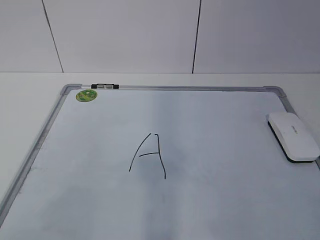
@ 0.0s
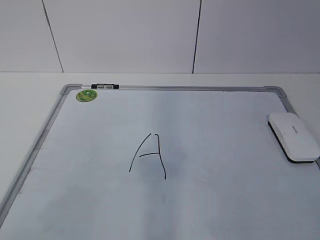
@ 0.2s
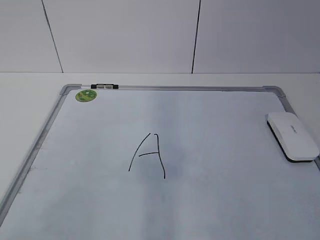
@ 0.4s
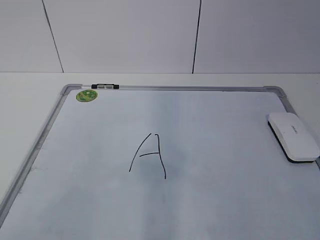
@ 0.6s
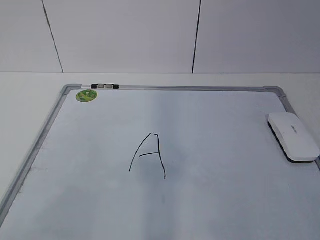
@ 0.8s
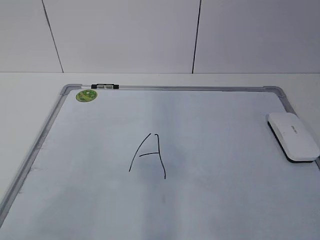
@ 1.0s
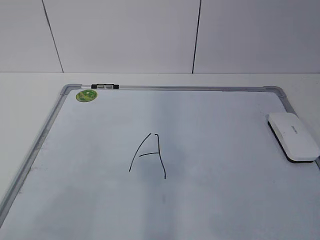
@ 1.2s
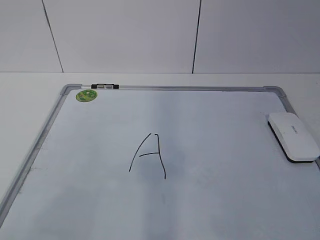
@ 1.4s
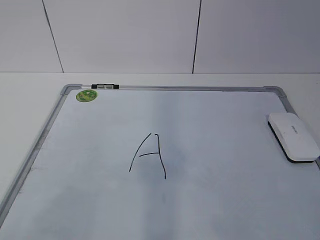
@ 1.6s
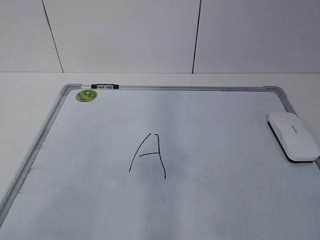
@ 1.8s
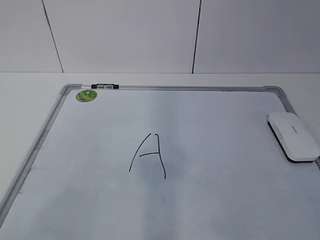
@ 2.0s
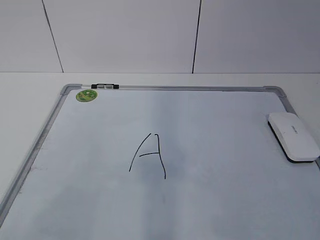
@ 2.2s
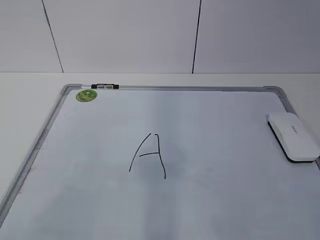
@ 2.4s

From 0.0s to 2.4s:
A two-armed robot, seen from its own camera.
Task of the whole recording: pick up the eraser on the blackboard and erase the letter "a".
From 1.2s to 2.4s: Both grippers stay put.

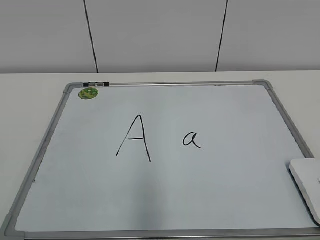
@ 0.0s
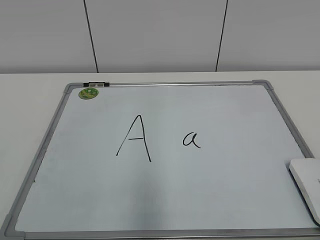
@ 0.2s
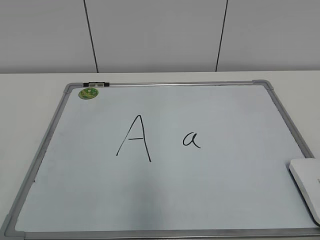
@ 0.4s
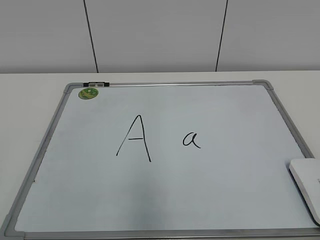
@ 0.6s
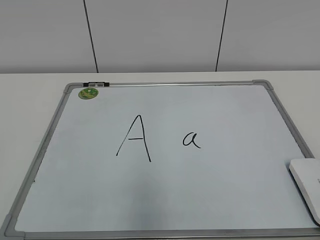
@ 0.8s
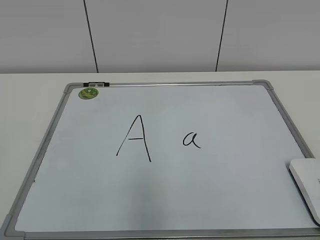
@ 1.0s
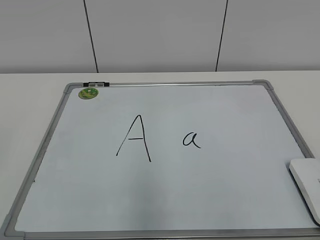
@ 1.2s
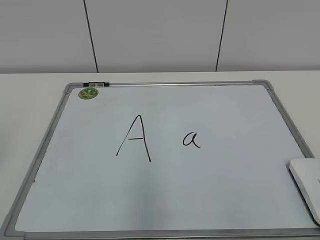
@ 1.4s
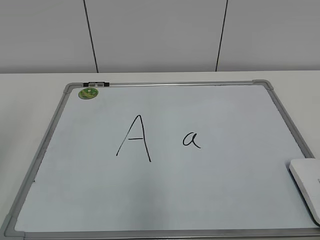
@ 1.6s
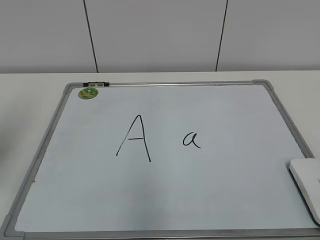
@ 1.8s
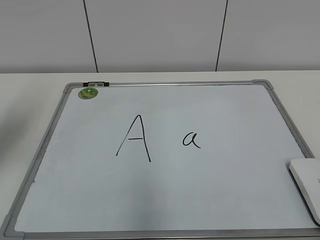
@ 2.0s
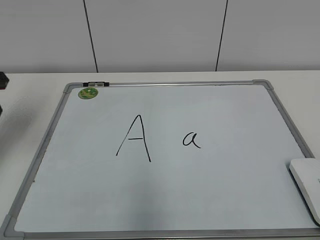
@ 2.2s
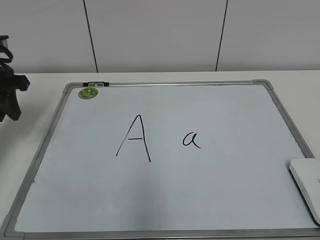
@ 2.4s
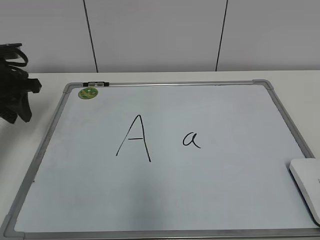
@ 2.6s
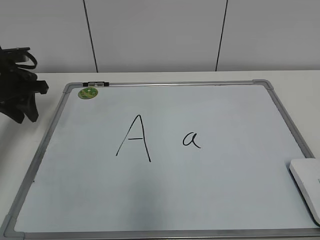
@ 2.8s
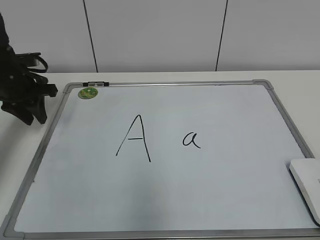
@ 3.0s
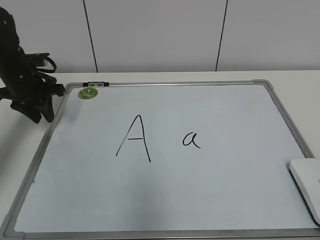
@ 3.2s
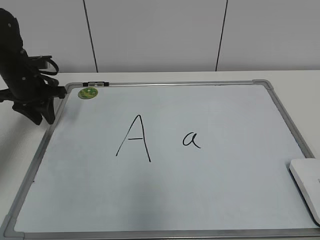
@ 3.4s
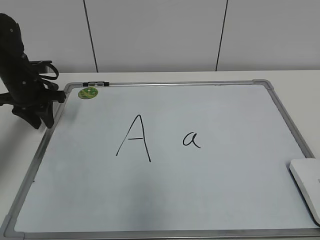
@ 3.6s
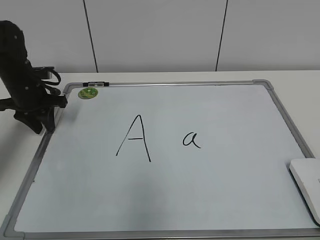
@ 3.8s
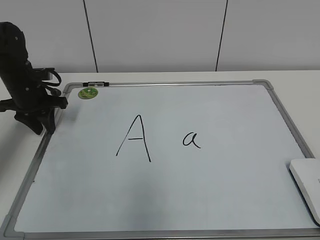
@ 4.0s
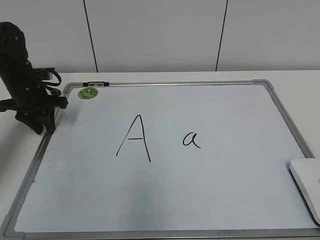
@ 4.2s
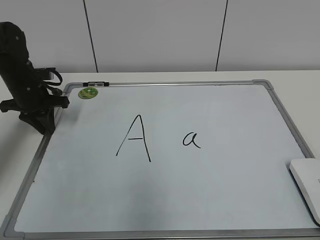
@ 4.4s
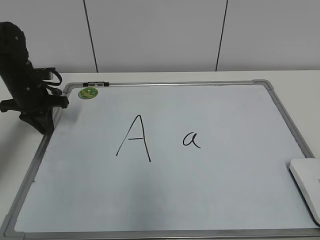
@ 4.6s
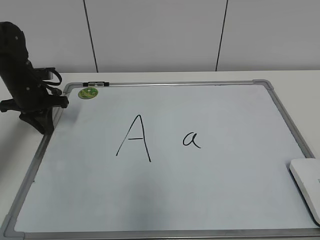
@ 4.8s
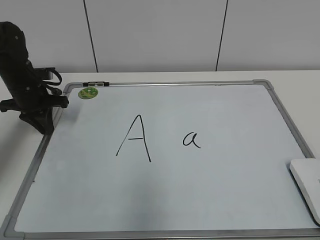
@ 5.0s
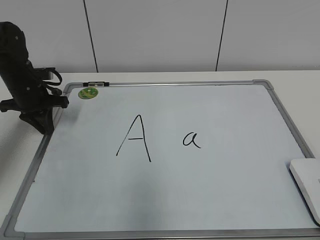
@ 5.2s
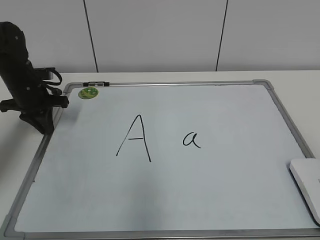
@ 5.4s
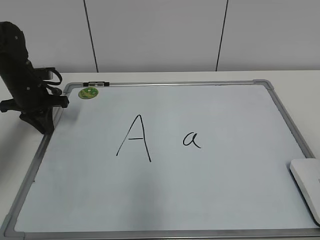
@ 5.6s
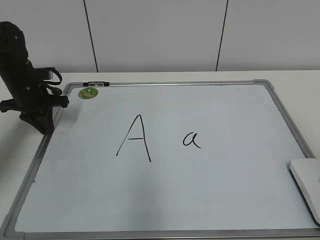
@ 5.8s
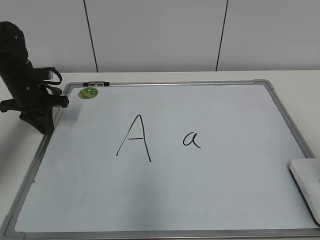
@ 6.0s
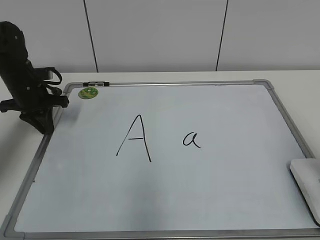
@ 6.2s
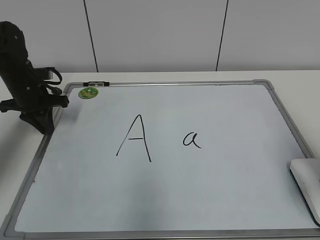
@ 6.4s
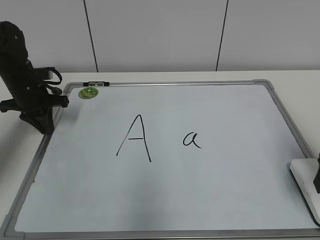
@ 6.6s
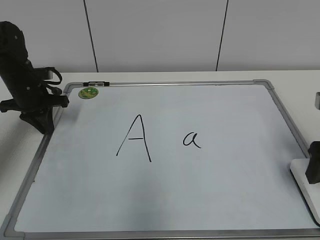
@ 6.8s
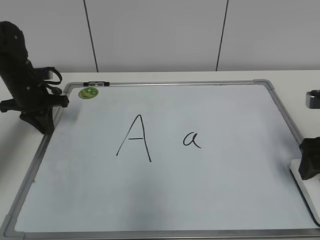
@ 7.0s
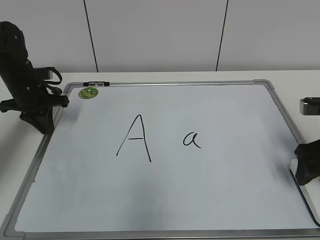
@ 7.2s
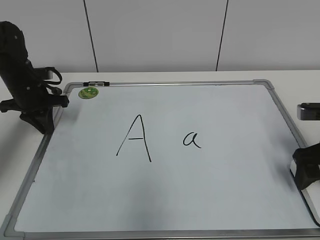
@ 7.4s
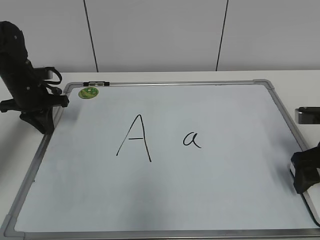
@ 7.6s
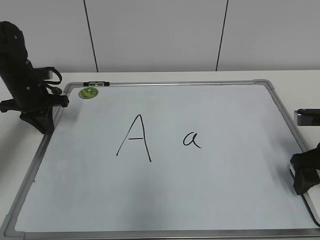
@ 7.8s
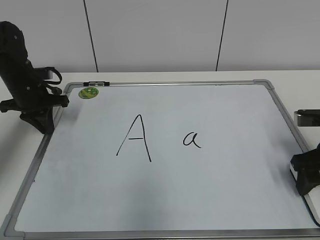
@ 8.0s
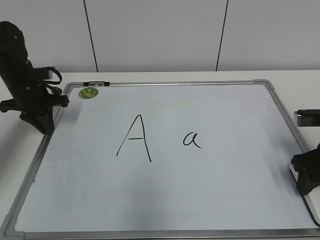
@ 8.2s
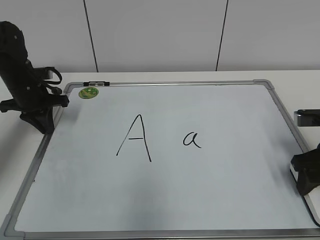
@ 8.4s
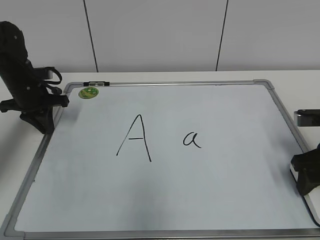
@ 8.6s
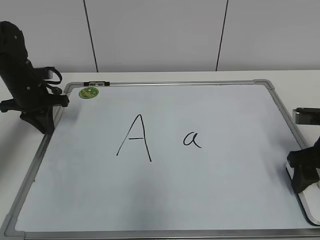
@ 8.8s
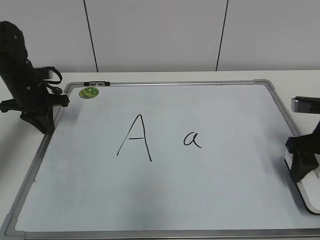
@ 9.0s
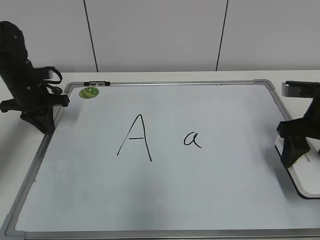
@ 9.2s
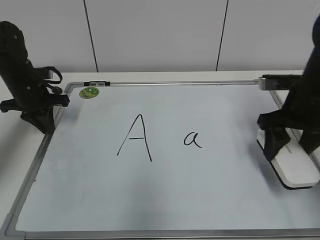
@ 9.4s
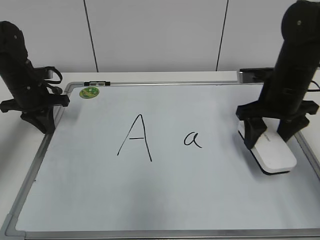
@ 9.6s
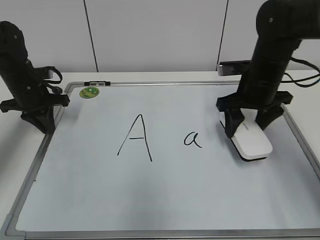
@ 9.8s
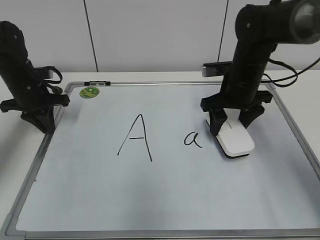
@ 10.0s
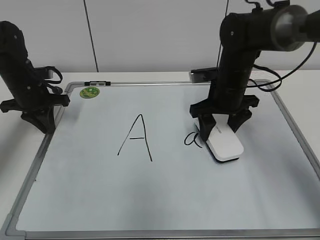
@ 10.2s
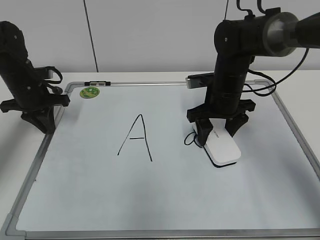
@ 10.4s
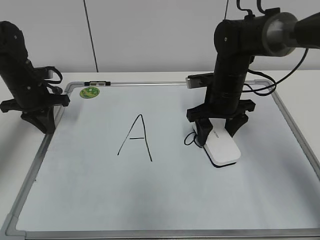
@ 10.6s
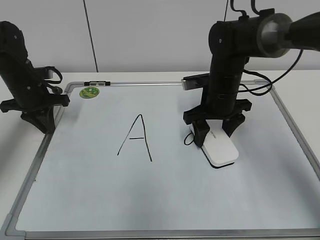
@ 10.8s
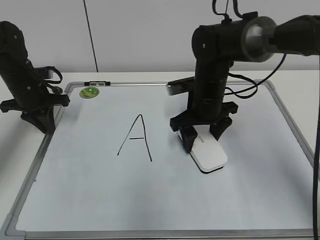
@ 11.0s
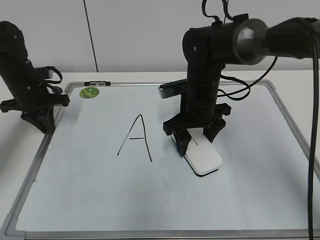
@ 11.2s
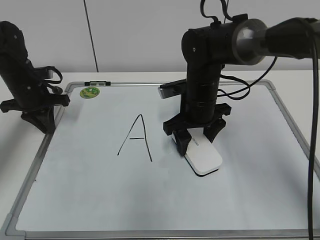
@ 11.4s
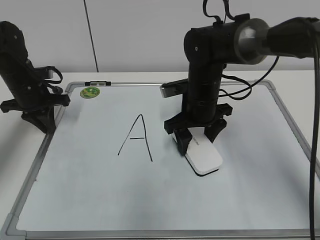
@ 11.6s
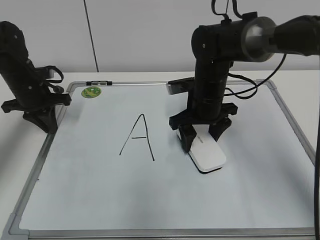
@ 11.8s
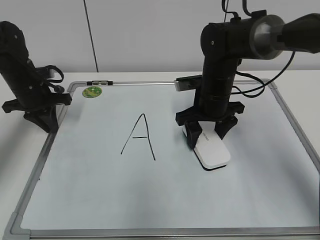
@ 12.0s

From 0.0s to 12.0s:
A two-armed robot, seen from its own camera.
Task of the whole recording: pick up the eraser on the blackboard and erase the letter "a".
Step, from 0.0s to 4.8s: Hold the drawing board steady with your left hand.
Step, from 5.0s to 8.0s: Grab the eraser with your right hand.
From 1.6s to 3.0s: The left gripper is displaced forward and downward by roughly 30 cm.
From 3.0s to 4.4s: There are only small adjustments of the grippers.
From 6.0s to 7.6s: The right gripper is displaced forward and downward by about 20 cm.
From 7.6s to 9.0s: The right gripper closes up.
From 9.0s to 10.4s: The right gripper travels to the left and forward by roughly 20 cm.
From 10.4s to 12.0s: The grippers move only a little.

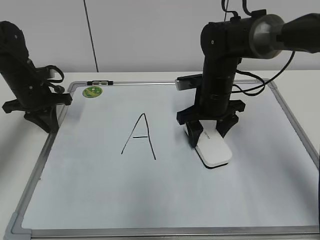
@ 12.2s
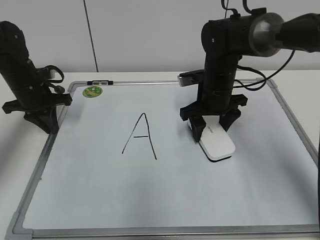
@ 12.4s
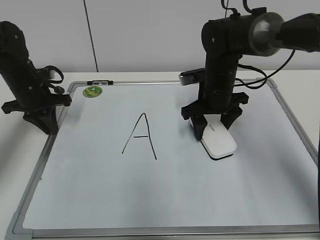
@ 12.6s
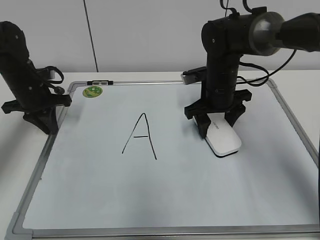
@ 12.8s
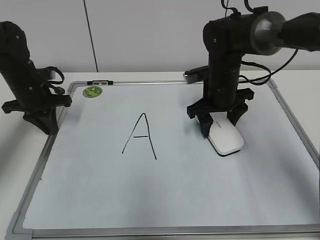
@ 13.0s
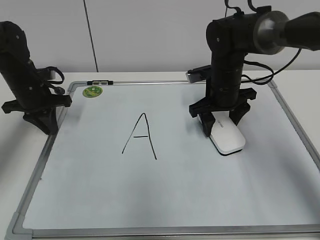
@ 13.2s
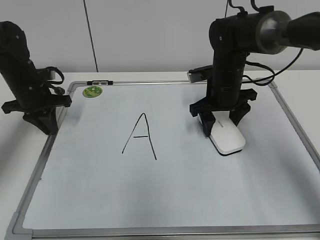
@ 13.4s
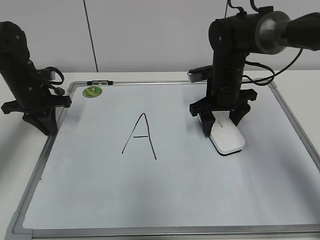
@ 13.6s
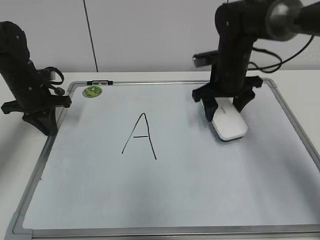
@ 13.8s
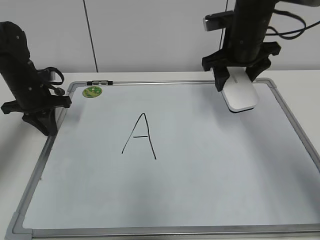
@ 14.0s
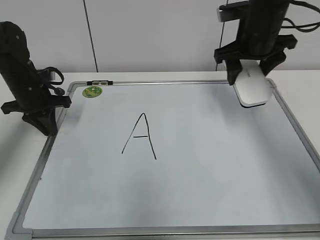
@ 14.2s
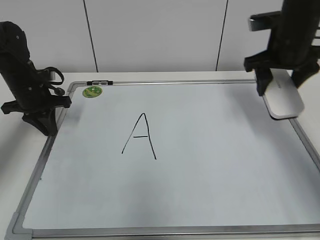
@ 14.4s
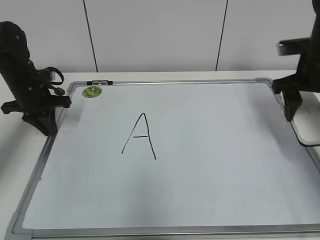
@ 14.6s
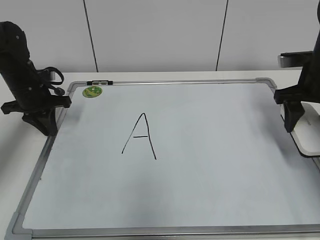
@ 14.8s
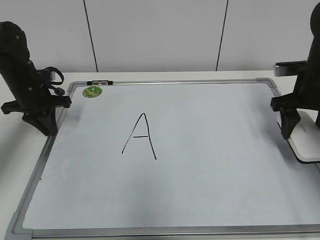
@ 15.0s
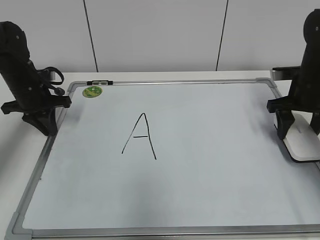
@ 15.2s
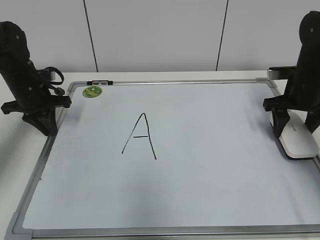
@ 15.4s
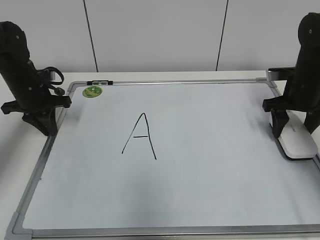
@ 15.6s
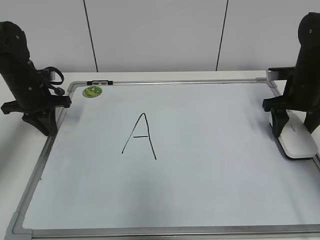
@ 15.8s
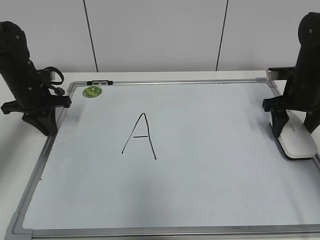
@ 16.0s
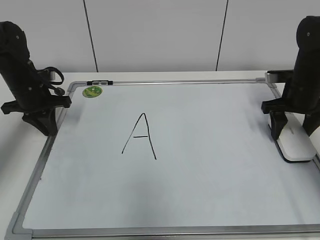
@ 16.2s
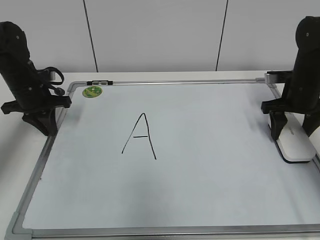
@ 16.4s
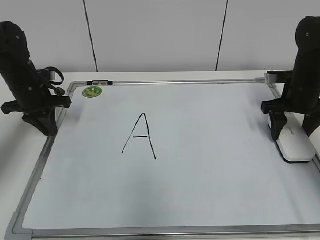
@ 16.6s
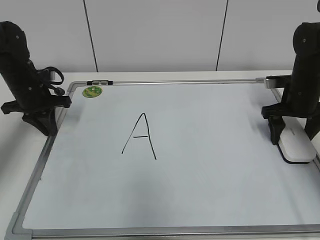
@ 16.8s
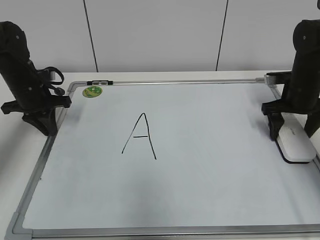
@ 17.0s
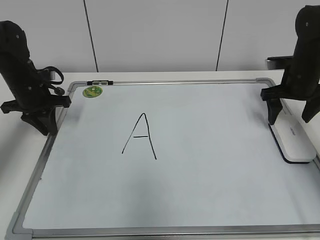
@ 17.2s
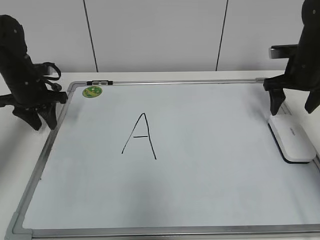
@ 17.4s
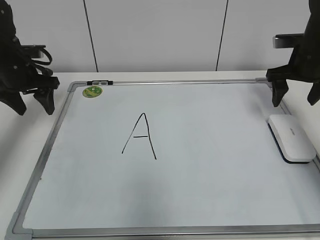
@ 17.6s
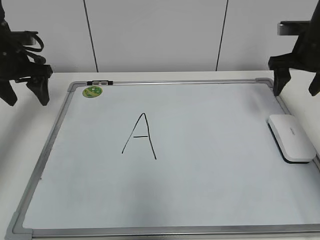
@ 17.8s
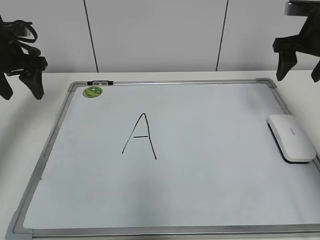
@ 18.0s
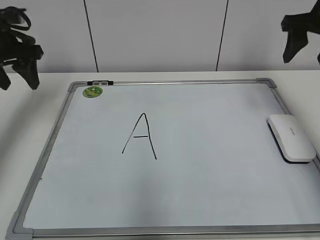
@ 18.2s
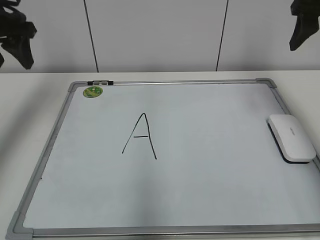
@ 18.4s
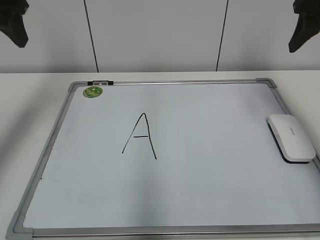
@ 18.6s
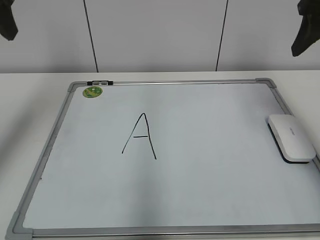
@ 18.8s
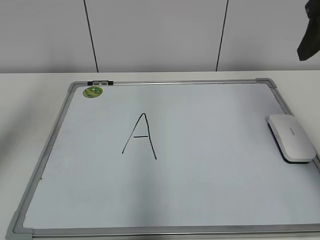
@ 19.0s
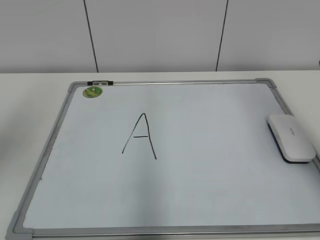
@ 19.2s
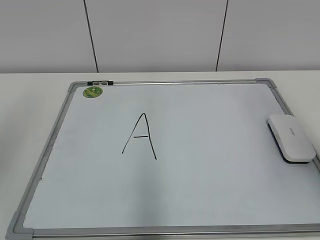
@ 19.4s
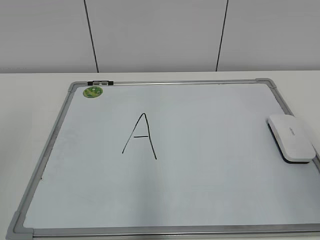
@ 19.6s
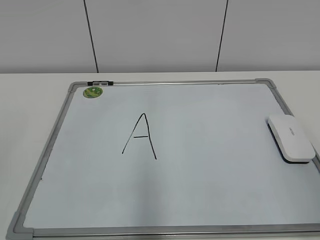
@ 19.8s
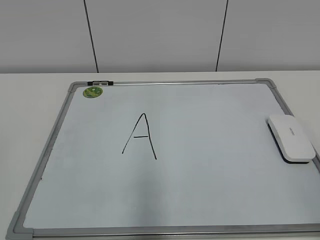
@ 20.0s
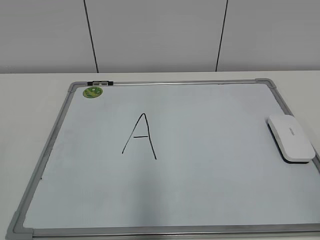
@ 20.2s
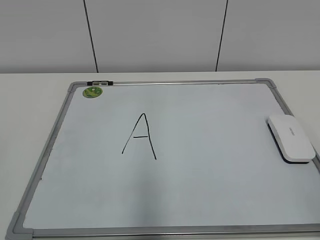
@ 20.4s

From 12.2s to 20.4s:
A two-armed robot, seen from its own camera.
Task of the whole recording: pick up the eraser on the blackboard and erase the letter "a".
Step, from 12.8s to 16.8s: Put down the eraser with your right hand.
From 12.2s to 13.8s: The right gripper shifts by about 5 cm.
From 13.8s to 15.4s: The right gripper moves to the right, roughly 15 cm.
From 15.4s to 17.2s: The right gripper opens its fingers.
From 17.2s to 18.8s: The two grippers go some 25 cm upward and backward. The left gripper opens up. The right gripper closes its fingers.
From 18.8s to 20.4s: Both grippers move backward, roughly 30 cm.
